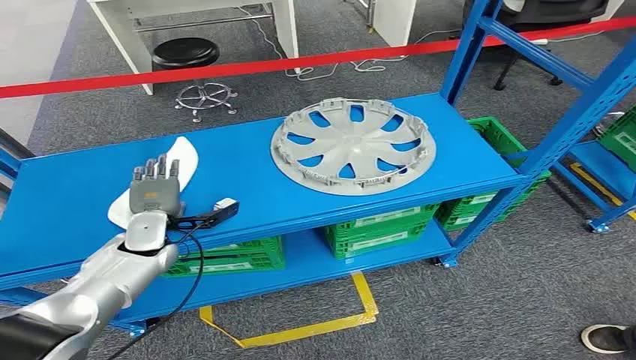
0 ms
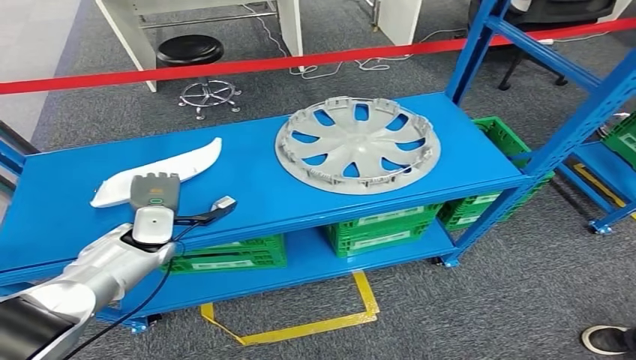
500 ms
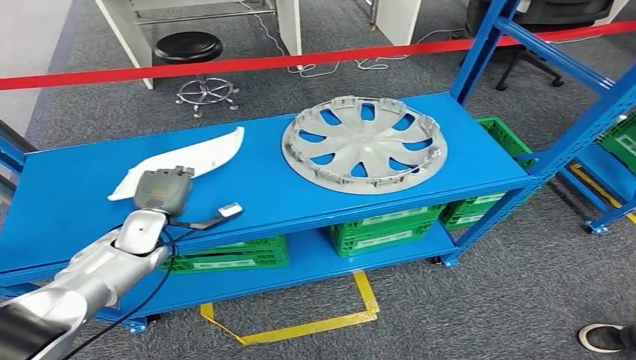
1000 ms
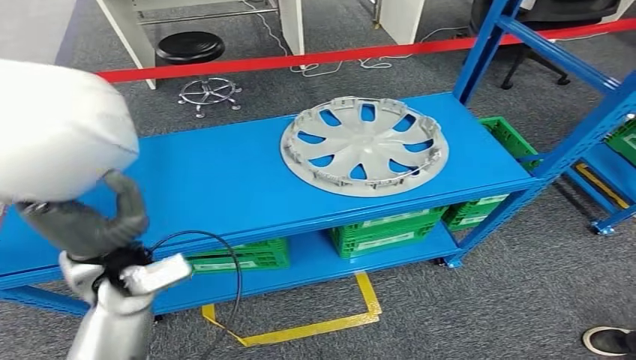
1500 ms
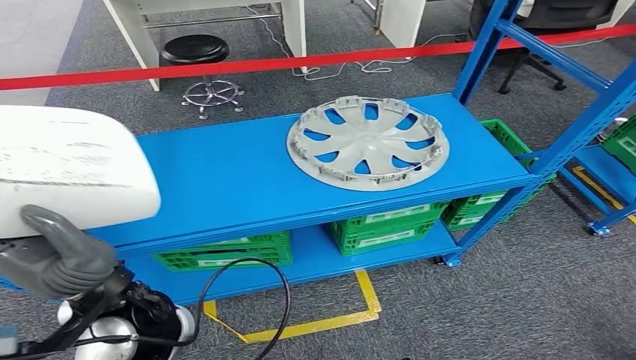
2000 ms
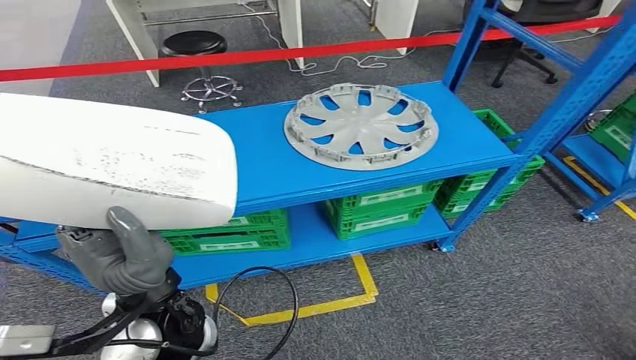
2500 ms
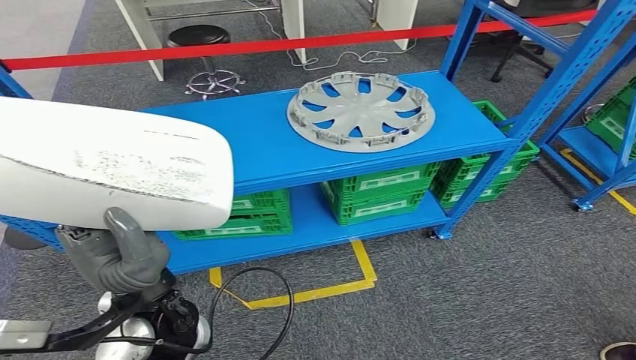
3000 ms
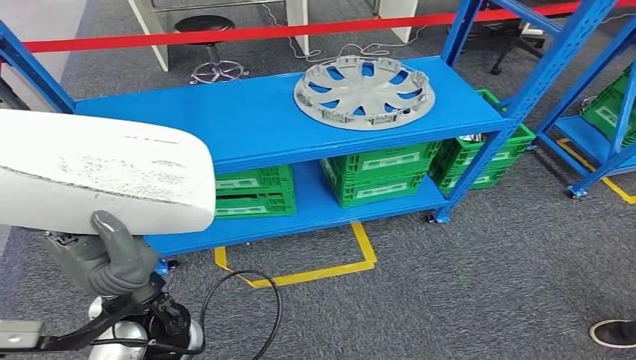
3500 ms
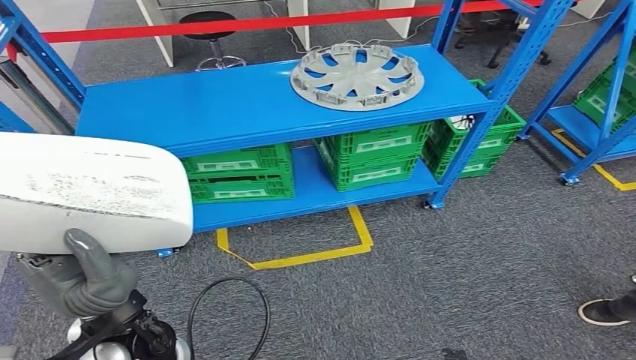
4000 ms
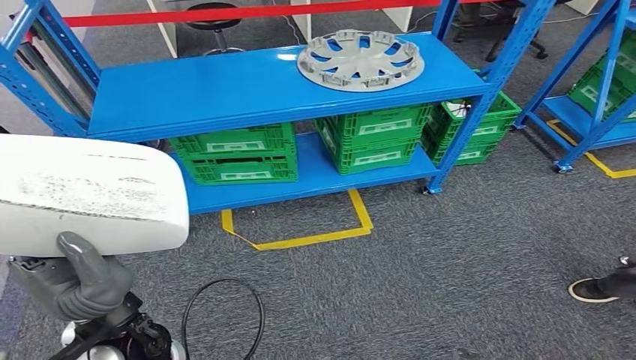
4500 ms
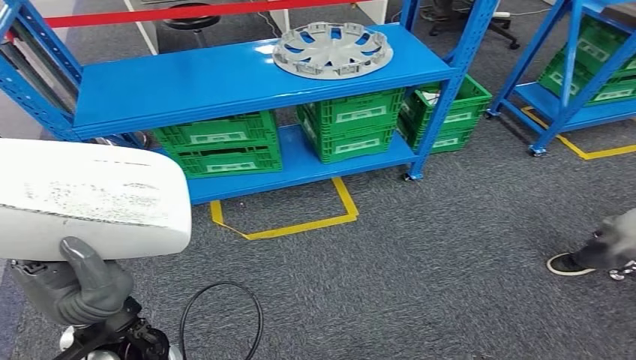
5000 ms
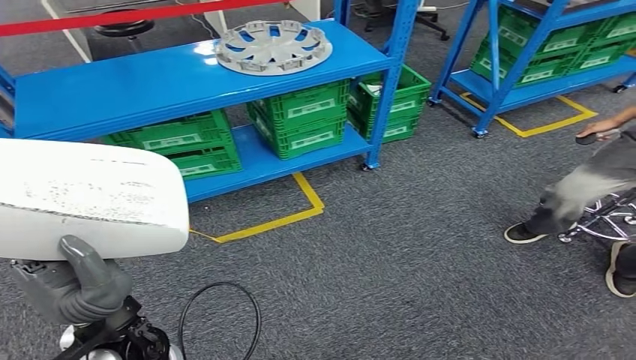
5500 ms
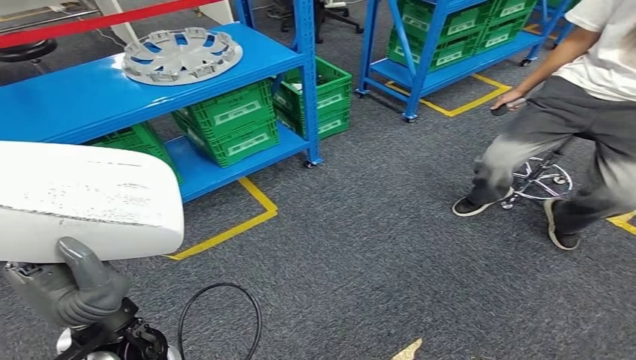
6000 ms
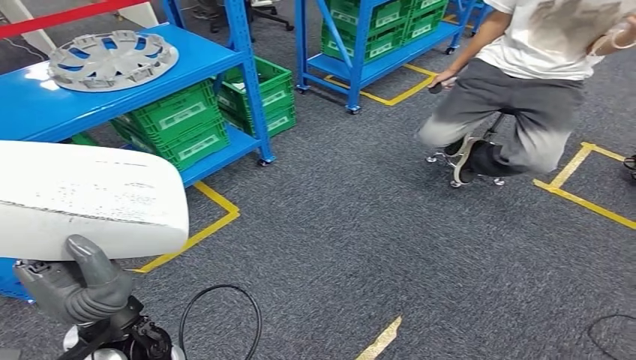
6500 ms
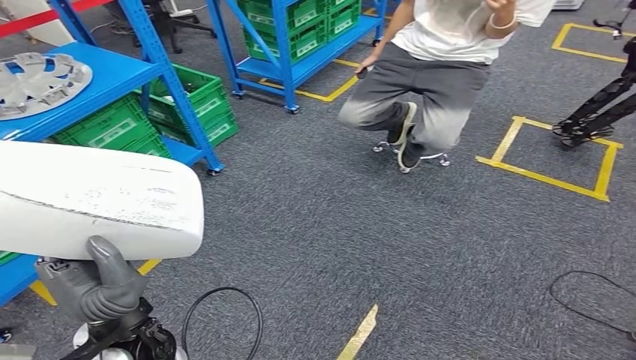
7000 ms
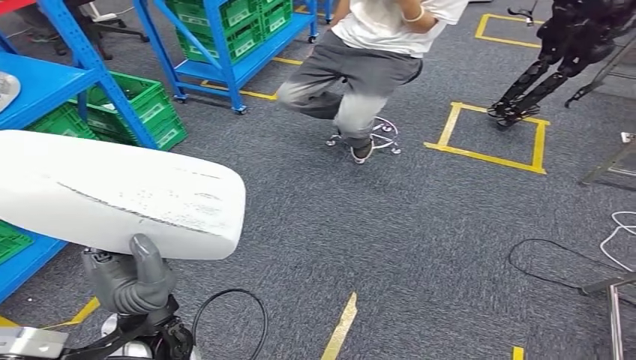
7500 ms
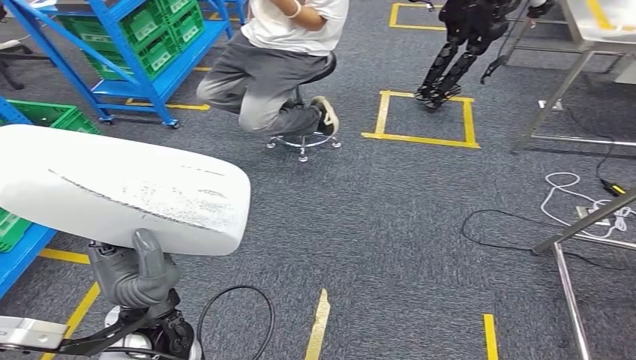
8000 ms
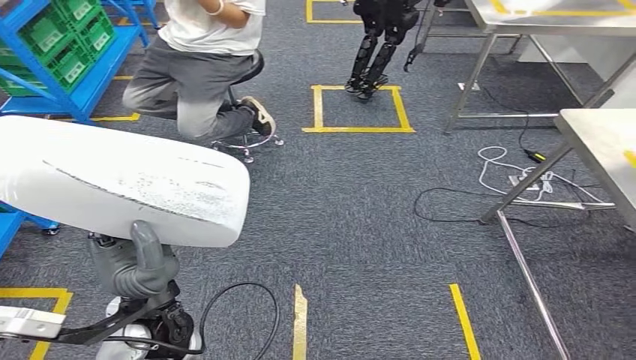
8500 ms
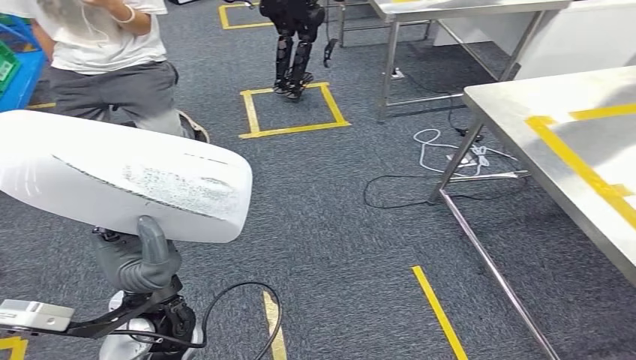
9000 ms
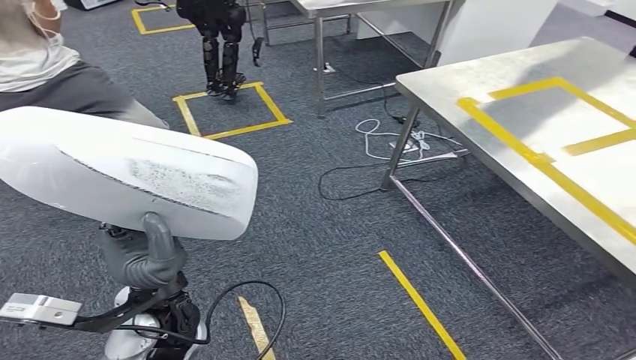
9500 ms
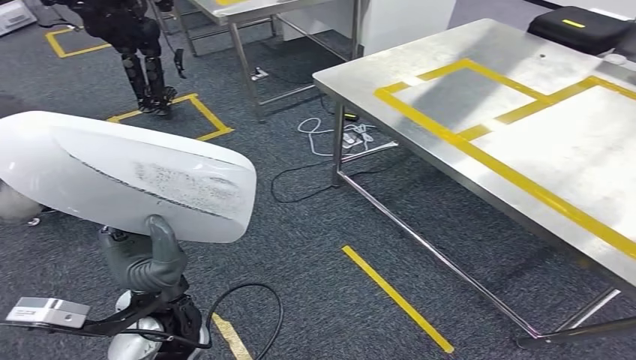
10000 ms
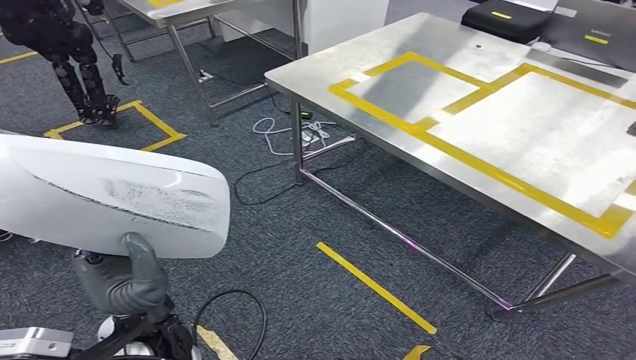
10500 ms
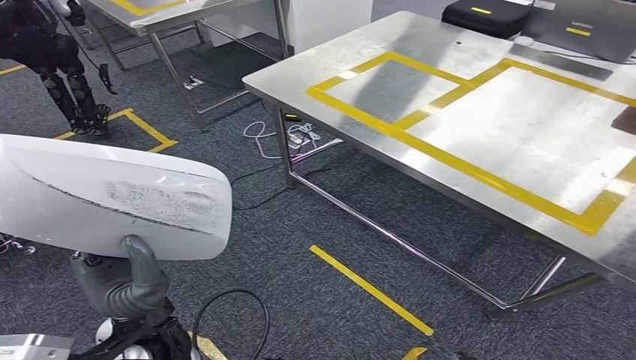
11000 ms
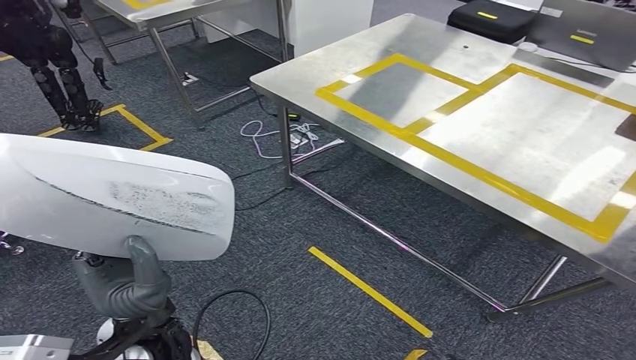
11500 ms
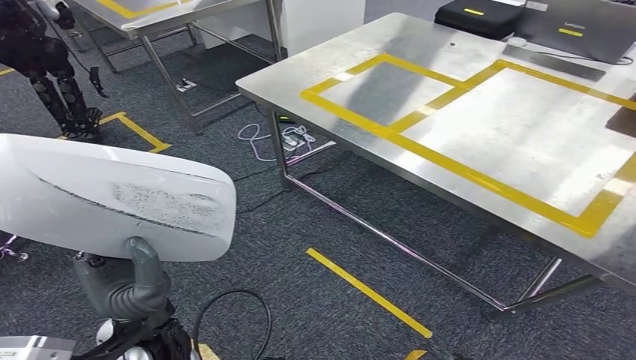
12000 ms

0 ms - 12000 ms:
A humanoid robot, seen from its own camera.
Step, 0 ms - 2000 ms: Pick up the small component from the shelf.

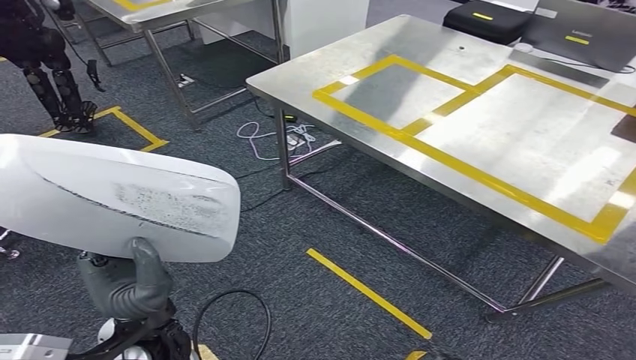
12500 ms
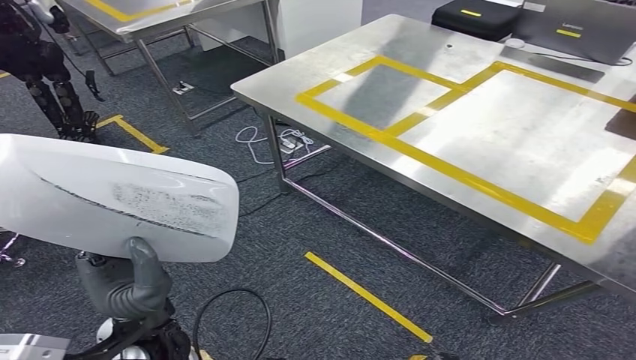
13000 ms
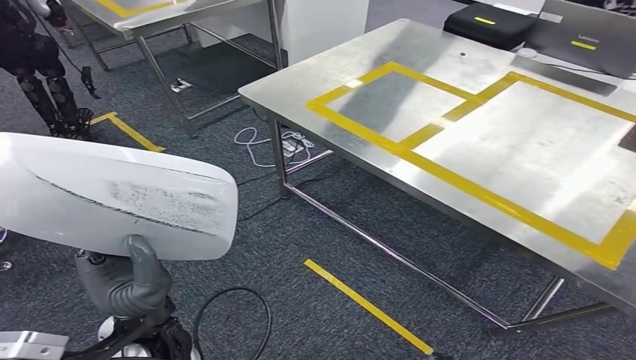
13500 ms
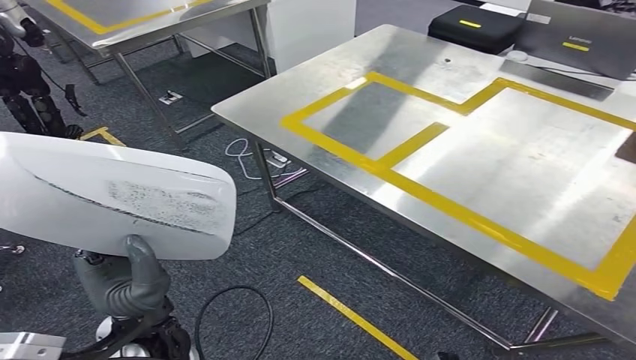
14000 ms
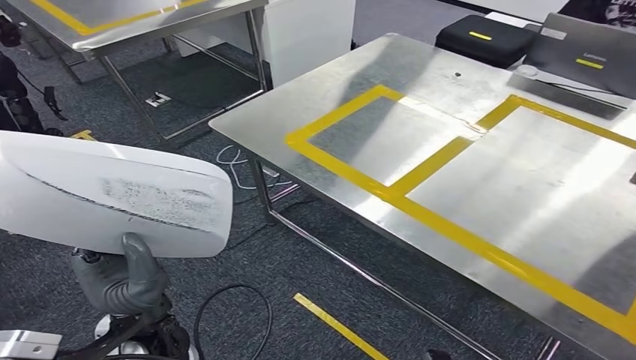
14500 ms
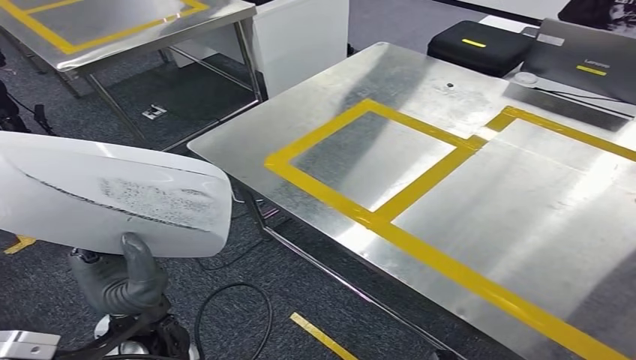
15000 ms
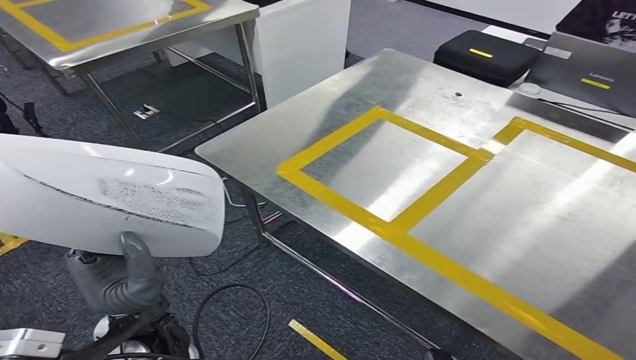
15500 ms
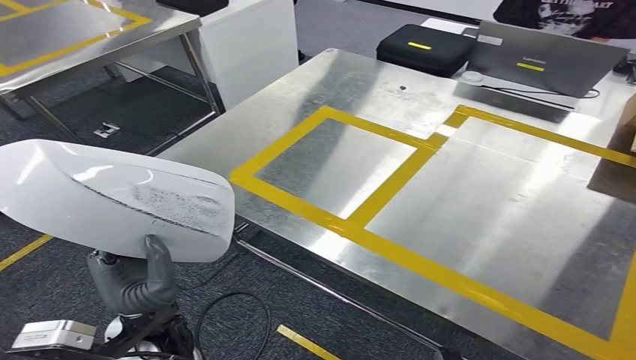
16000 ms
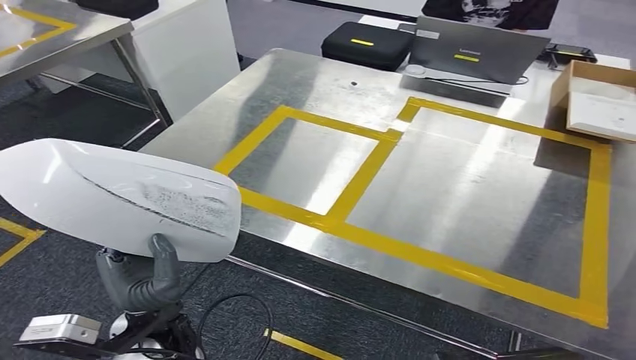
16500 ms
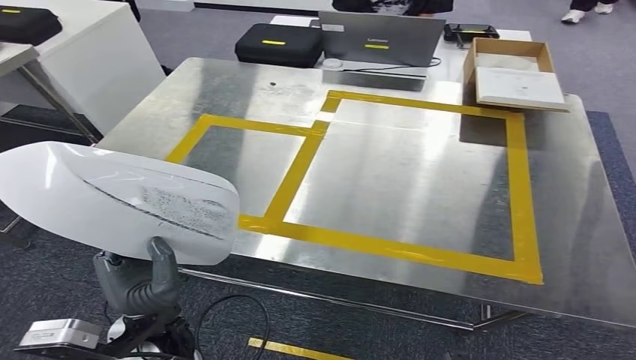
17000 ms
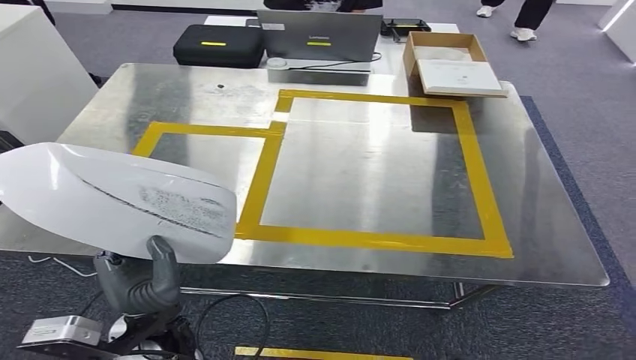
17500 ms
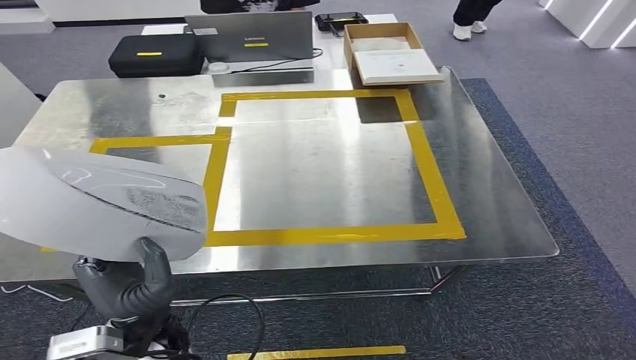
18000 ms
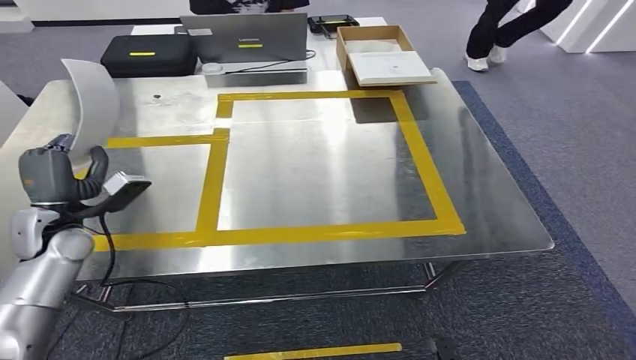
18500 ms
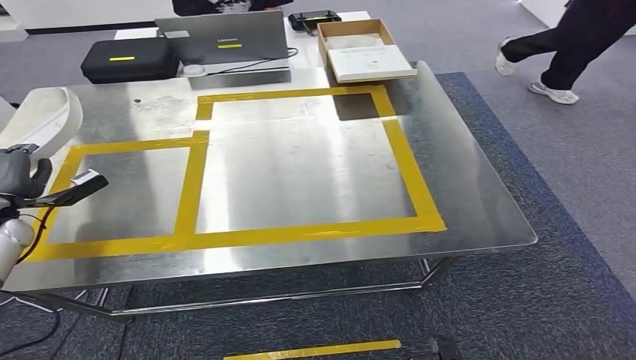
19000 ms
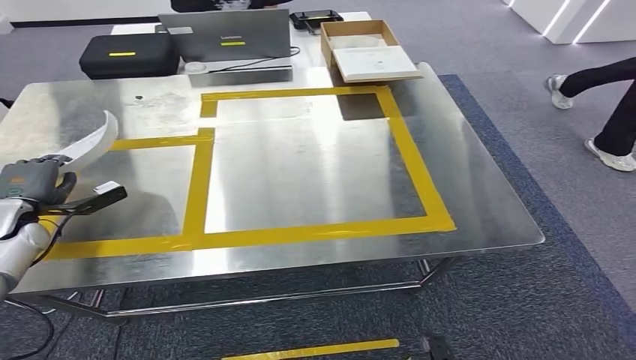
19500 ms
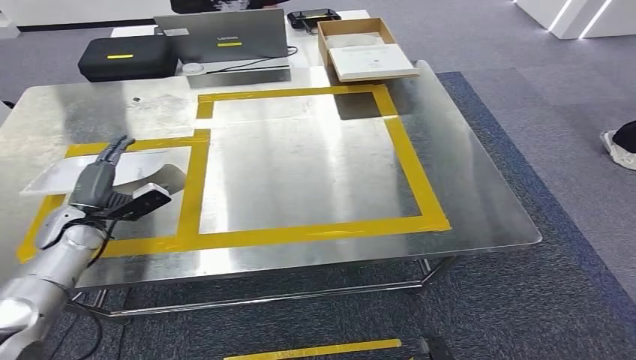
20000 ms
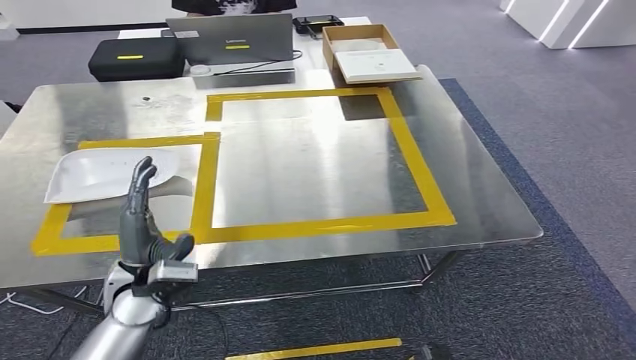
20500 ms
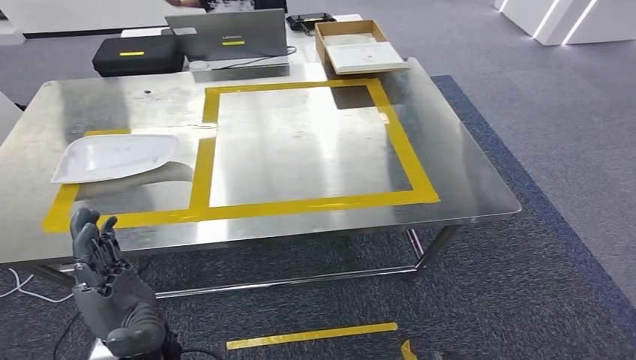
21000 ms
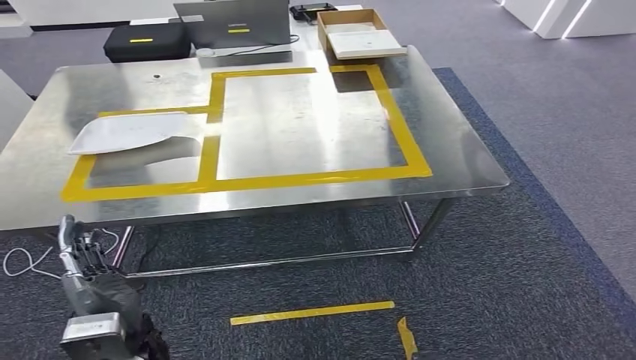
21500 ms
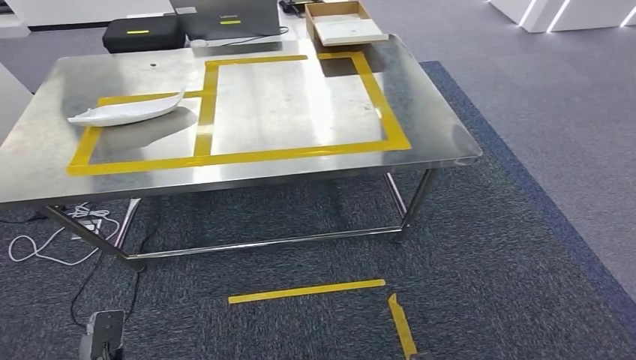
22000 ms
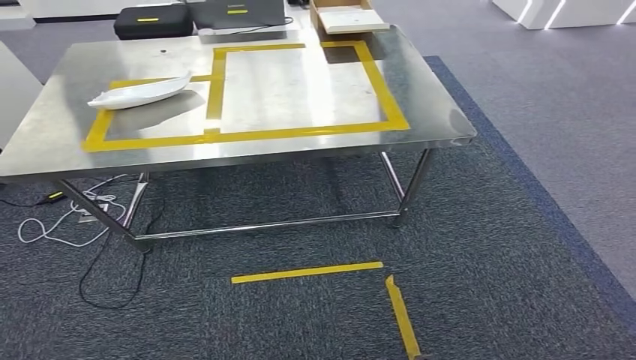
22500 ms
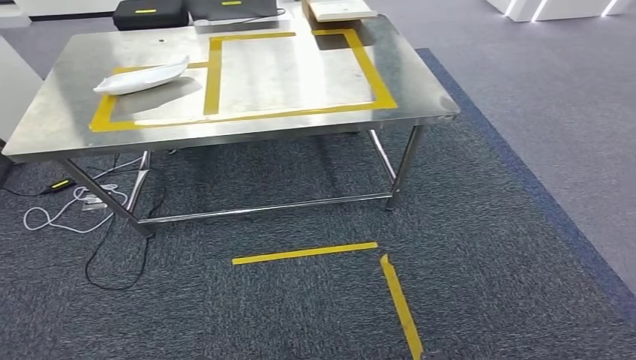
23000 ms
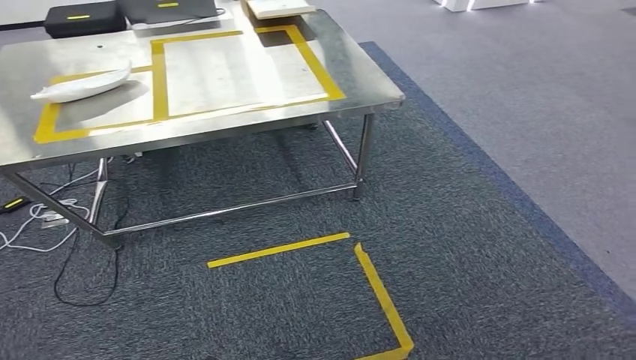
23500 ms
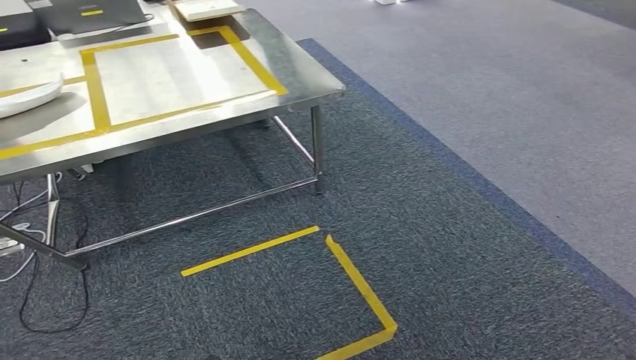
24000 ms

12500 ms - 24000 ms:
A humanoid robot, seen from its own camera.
Step, 12500 ms - 14500 ms: Move the small component to the workbench.
Step, 15000 ms - 20000 ms: Insert the small component into the corresponding slot on the workbench.
